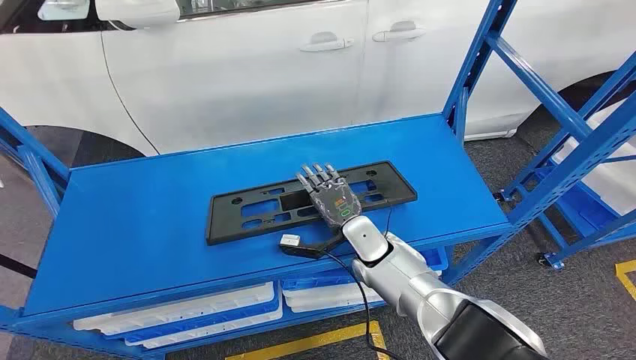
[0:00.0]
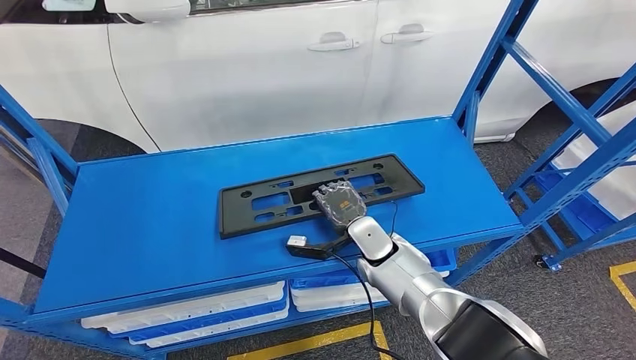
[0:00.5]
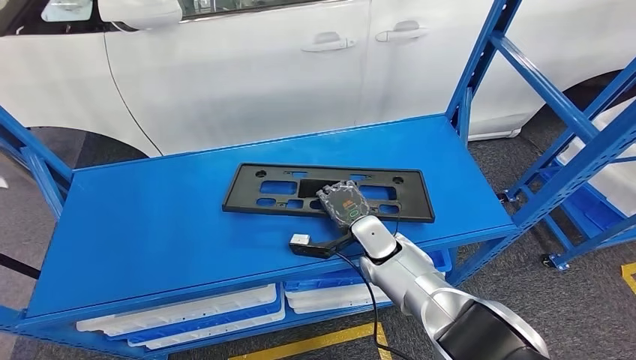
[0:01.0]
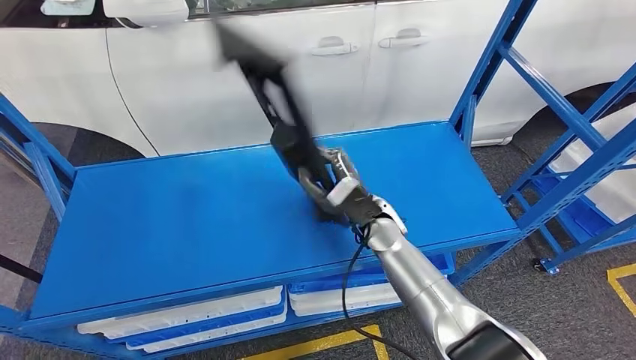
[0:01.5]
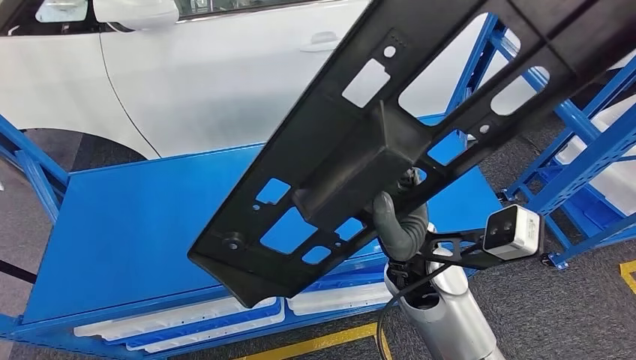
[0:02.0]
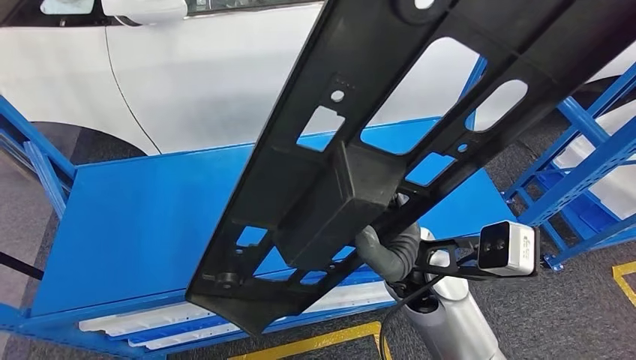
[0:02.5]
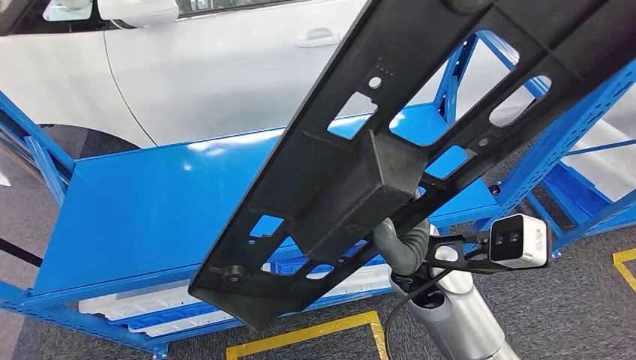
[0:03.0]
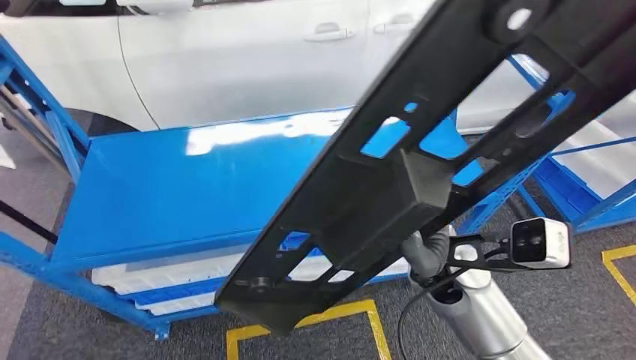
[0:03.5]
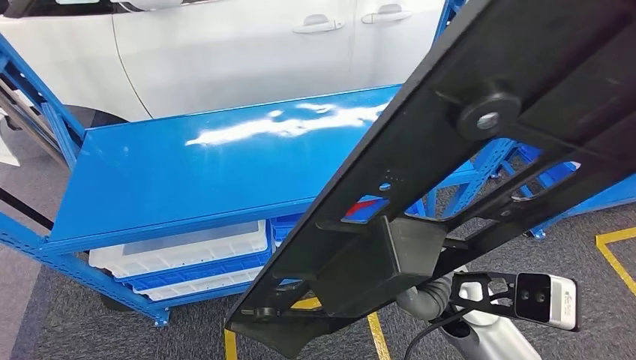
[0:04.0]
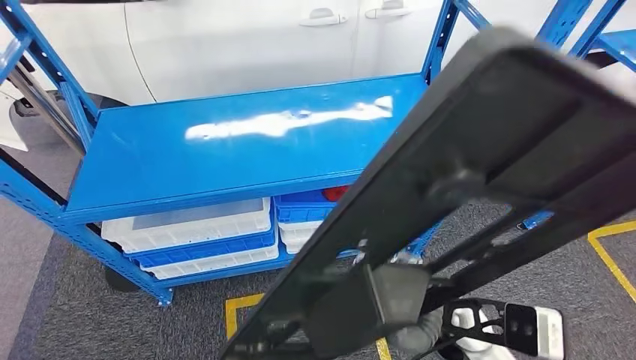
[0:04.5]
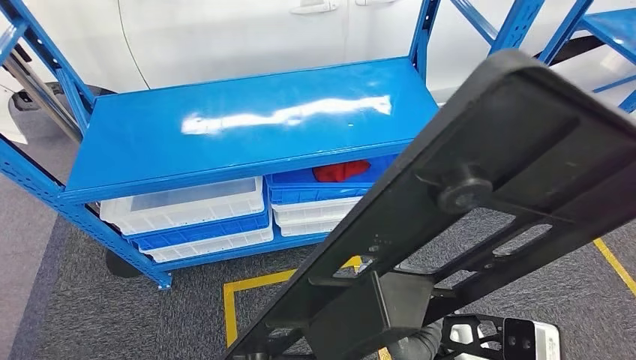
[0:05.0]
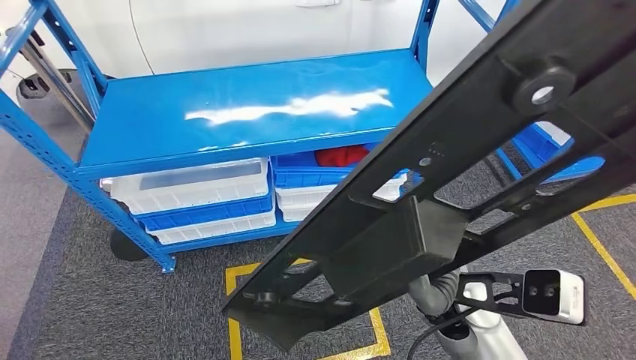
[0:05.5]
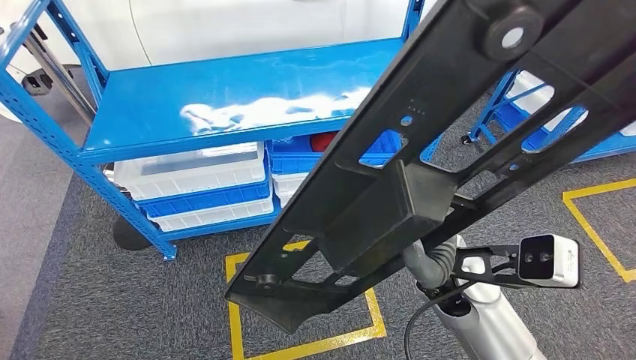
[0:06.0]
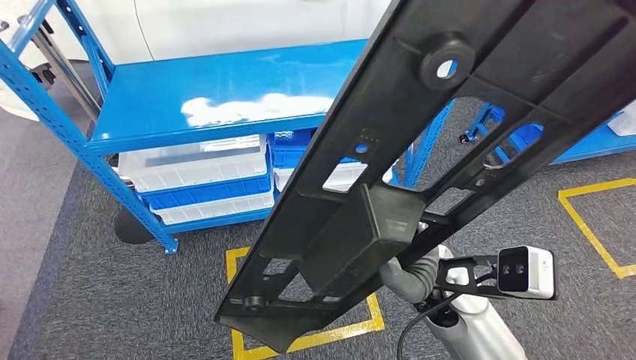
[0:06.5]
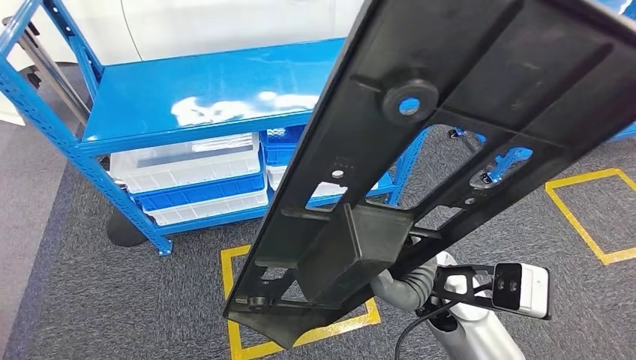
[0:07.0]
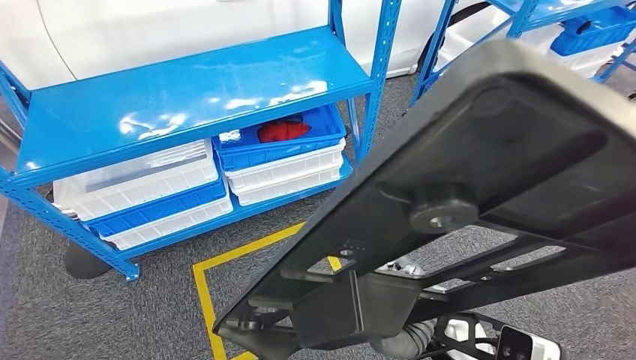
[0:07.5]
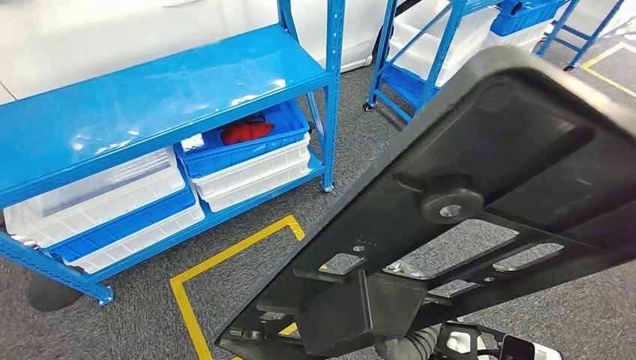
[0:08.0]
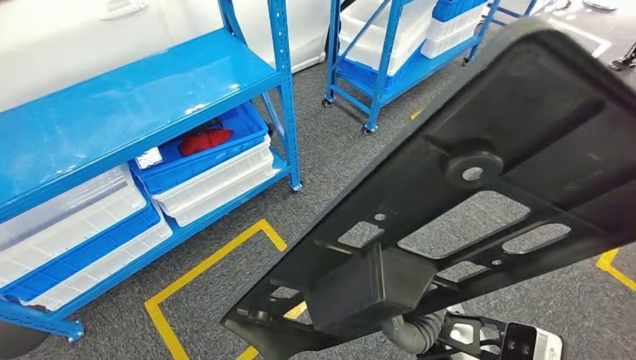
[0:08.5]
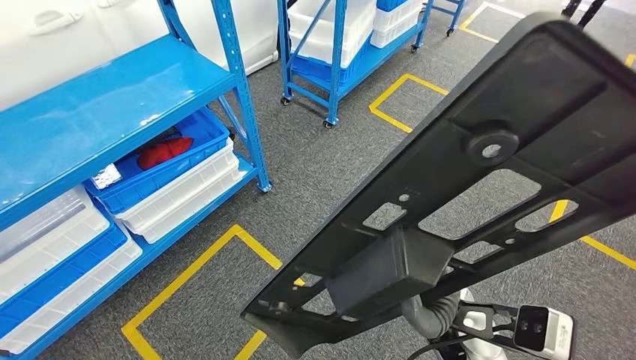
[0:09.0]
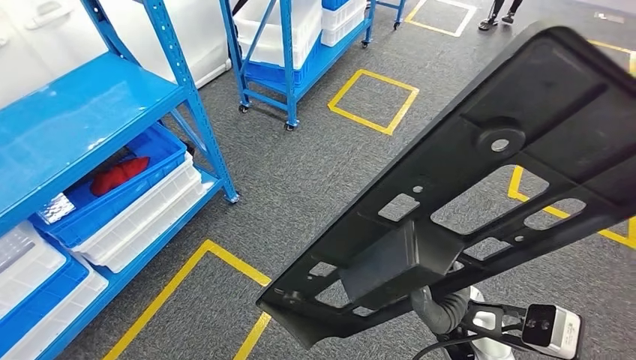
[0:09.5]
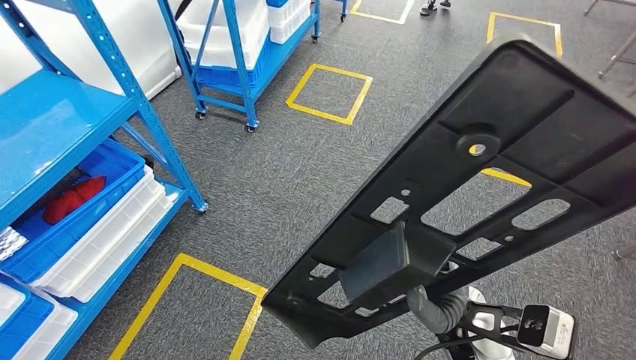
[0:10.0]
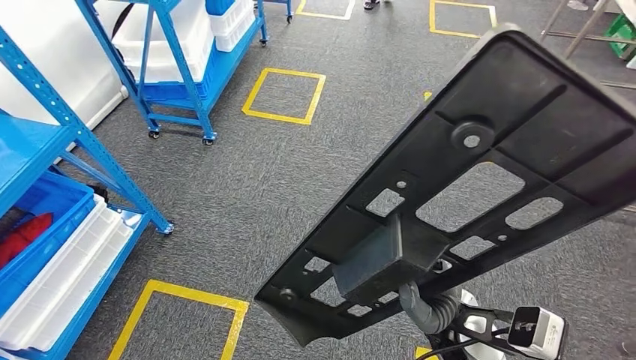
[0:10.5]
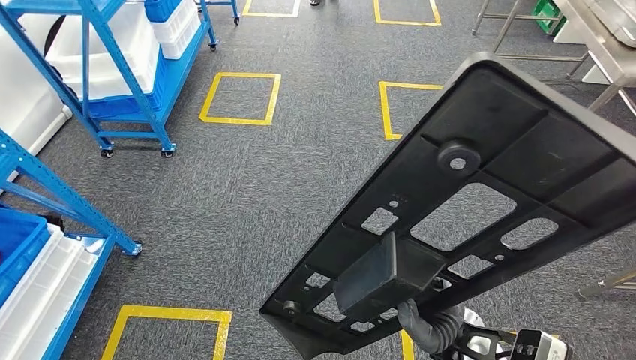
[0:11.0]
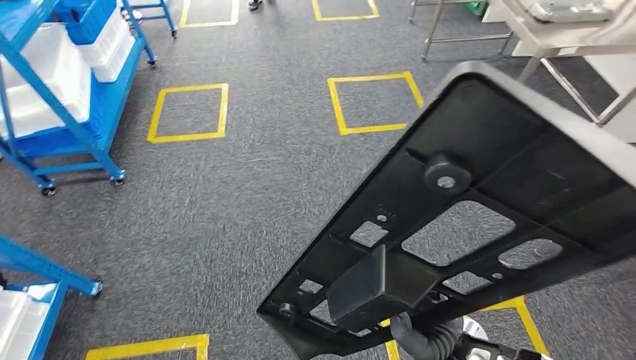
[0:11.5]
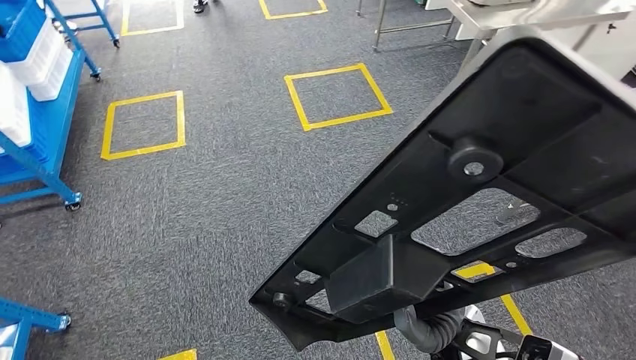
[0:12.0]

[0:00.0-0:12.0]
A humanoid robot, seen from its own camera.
Step, 0:00.0 to 0:03.0: Pick up the large material from the shelf.

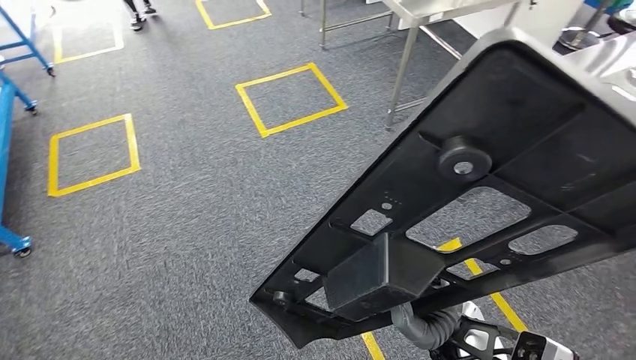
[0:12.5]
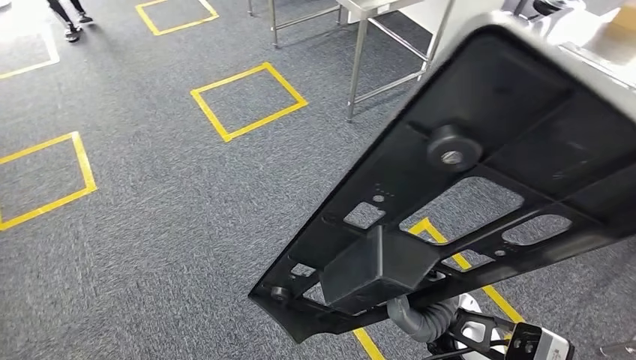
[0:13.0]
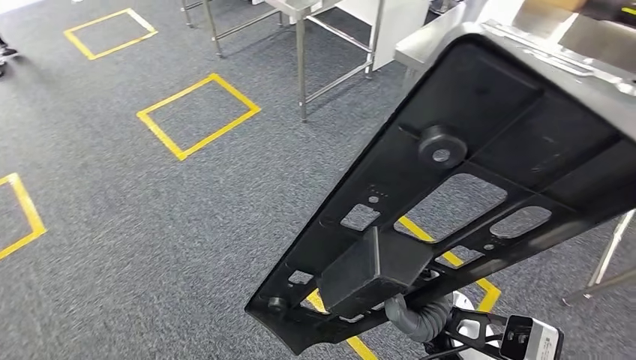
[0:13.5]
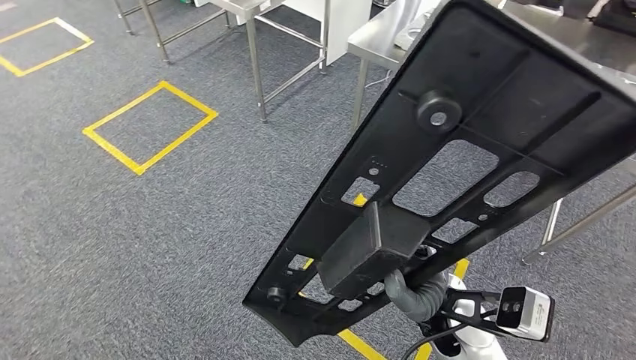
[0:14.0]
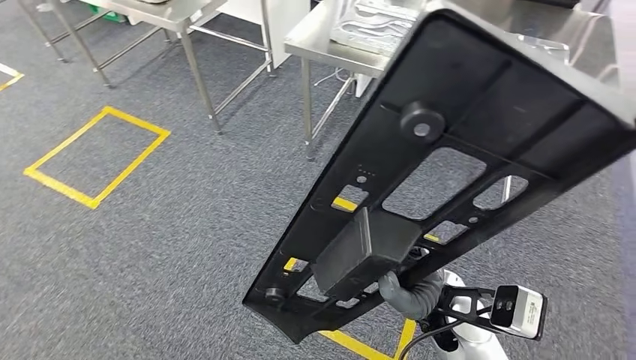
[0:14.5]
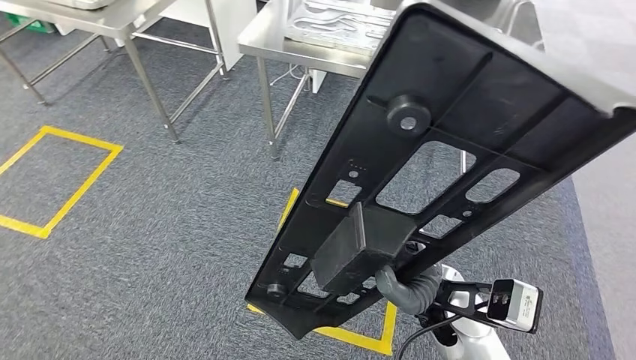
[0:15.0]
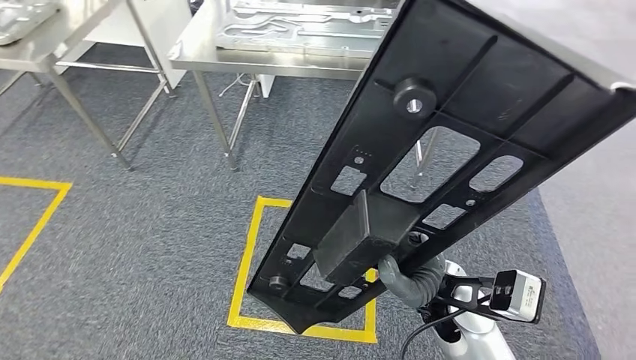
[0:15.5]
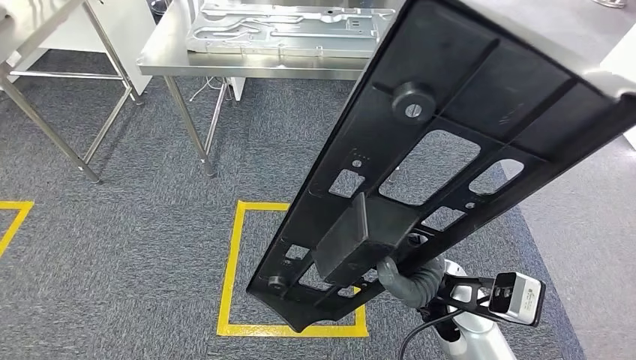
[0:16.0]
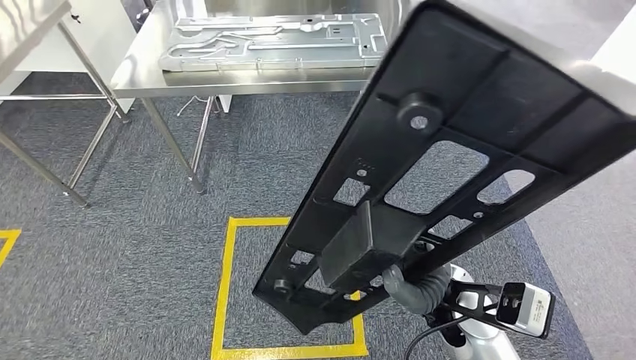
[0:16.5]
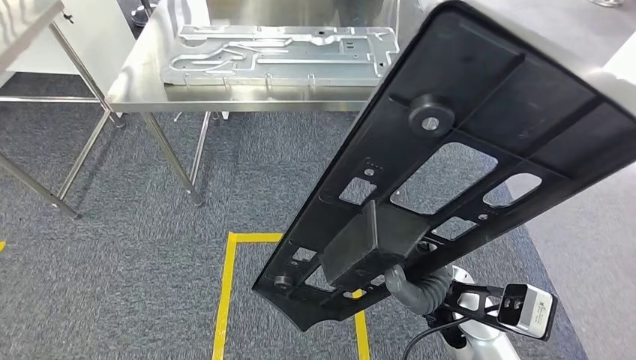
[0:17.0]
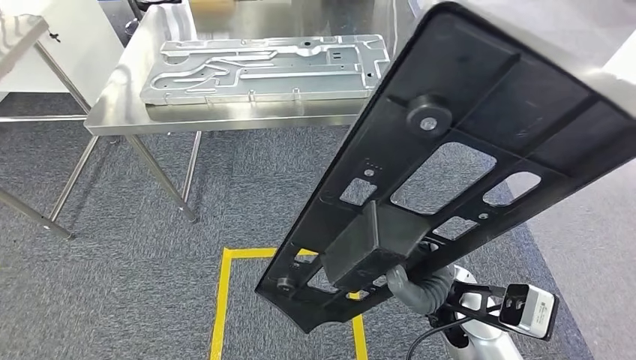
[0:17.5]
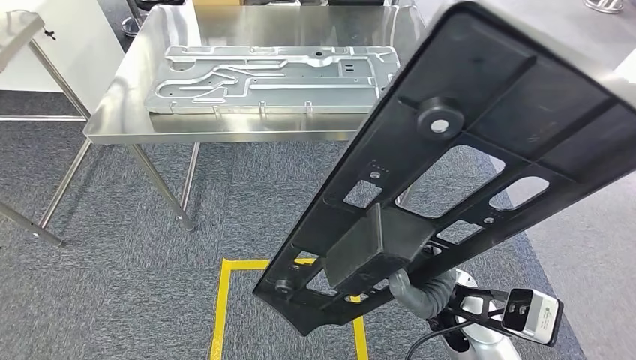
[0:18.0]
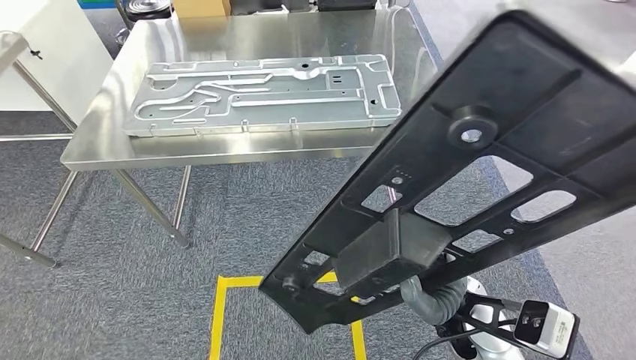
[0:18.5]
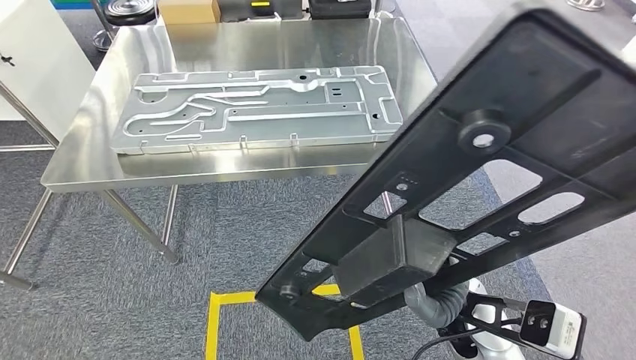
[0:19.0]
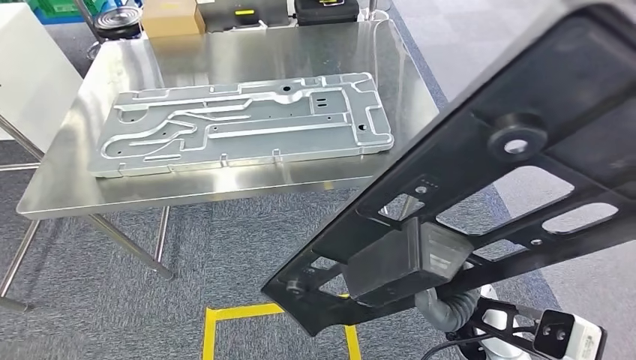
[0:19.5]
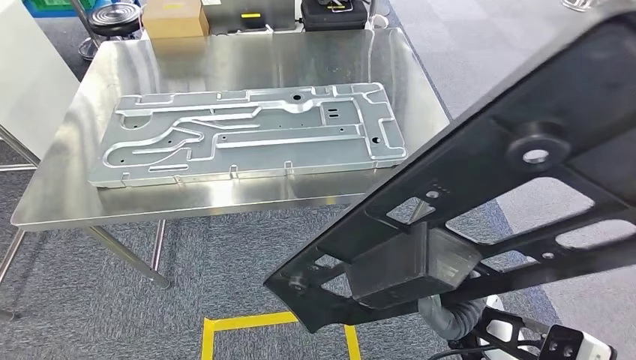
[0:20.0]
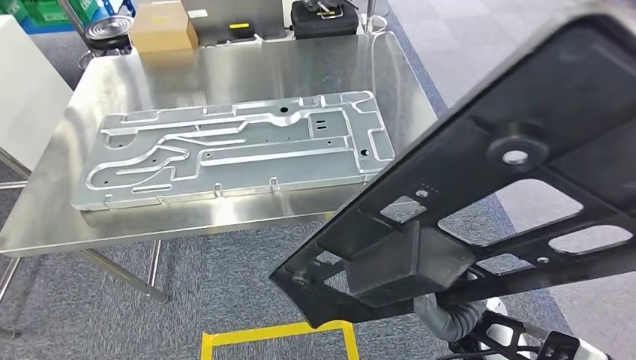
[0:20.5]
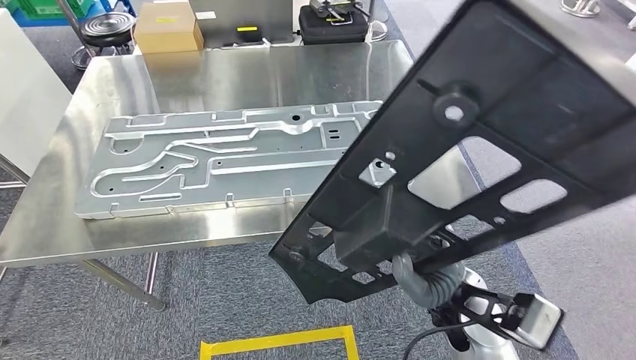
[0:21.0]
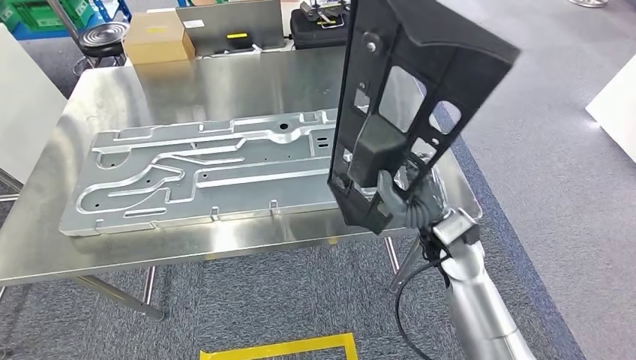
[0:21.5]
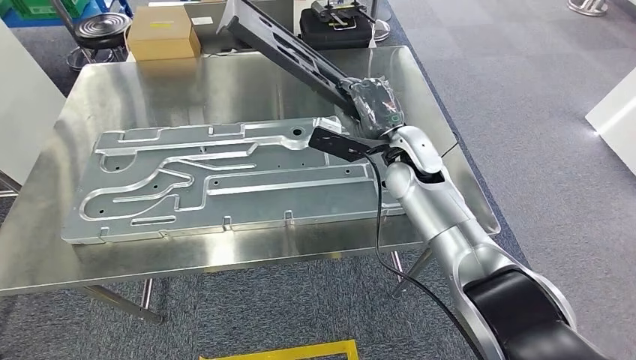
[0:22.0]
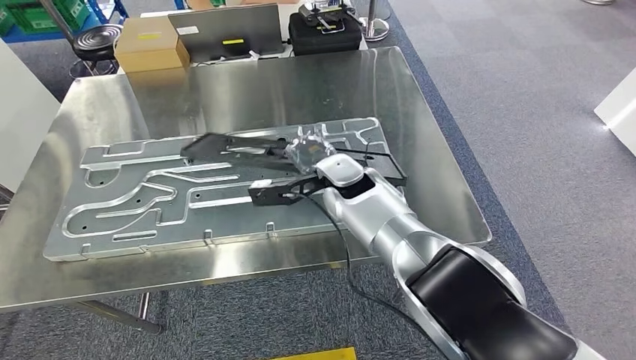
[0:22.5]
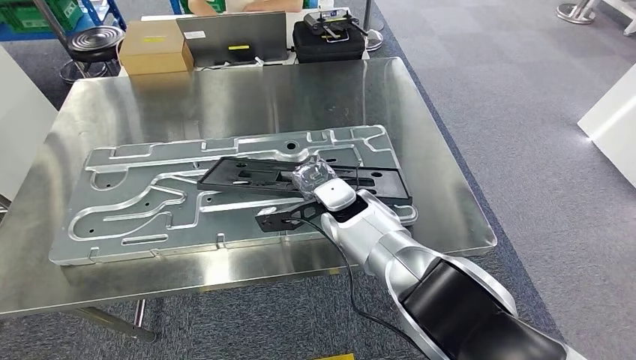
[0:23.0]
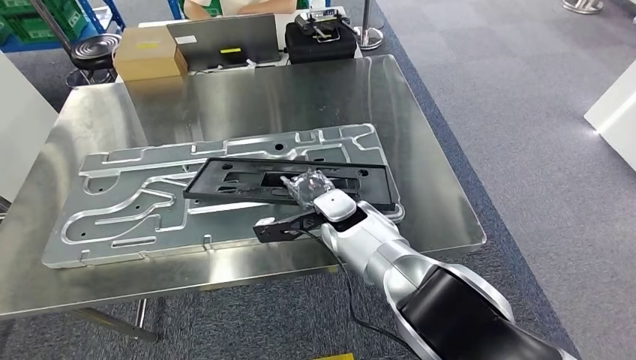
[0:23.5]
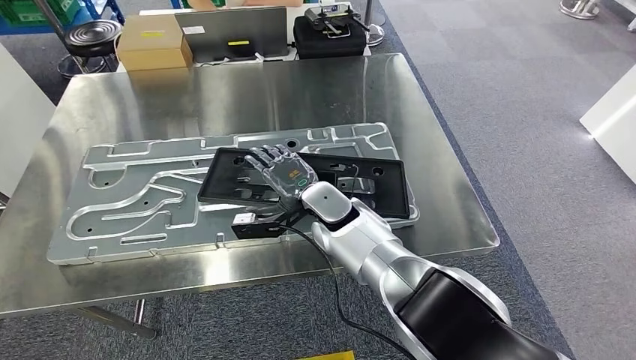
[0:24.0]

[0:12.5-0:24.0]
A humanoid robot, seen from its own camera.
Step, 0:12.5 to 0:20.0: Move the large material to the workbench.
